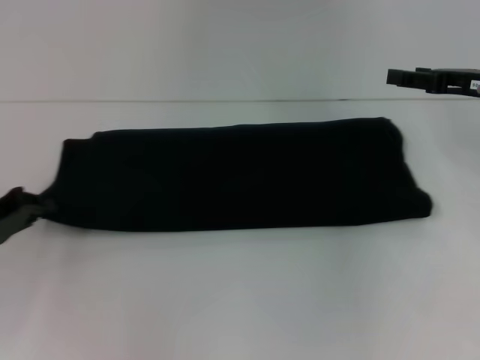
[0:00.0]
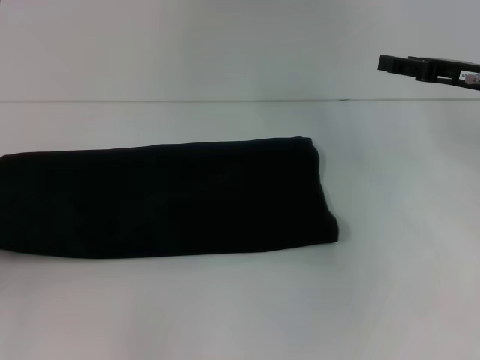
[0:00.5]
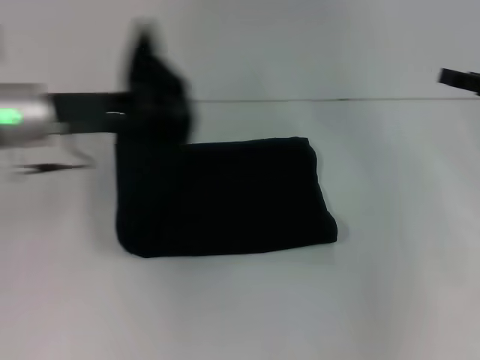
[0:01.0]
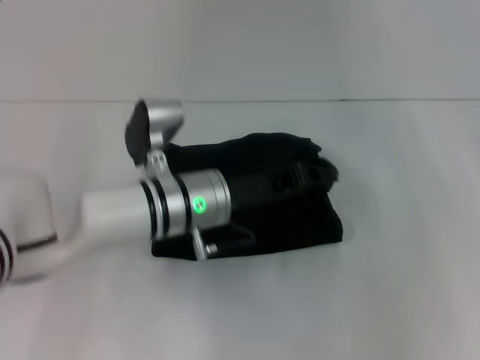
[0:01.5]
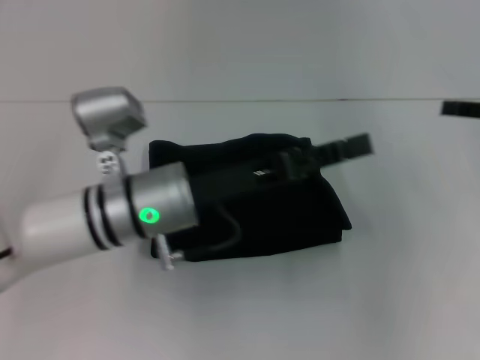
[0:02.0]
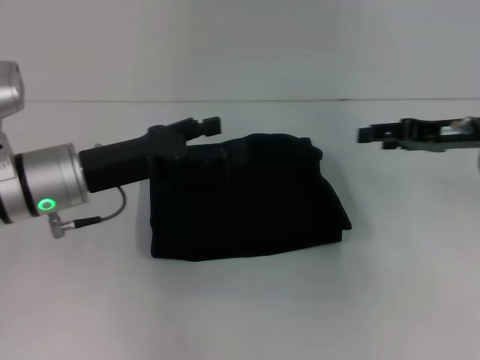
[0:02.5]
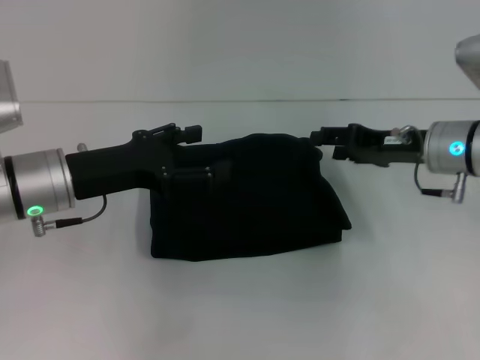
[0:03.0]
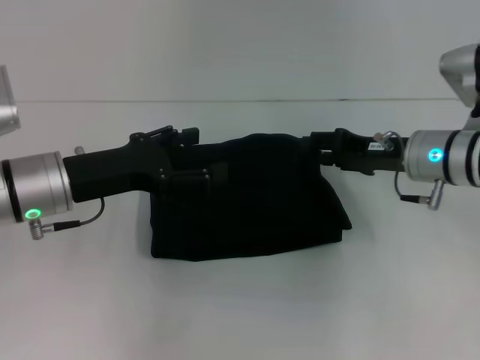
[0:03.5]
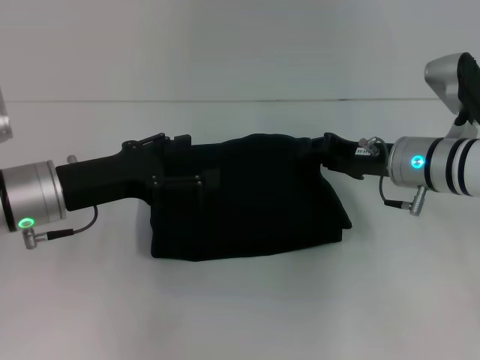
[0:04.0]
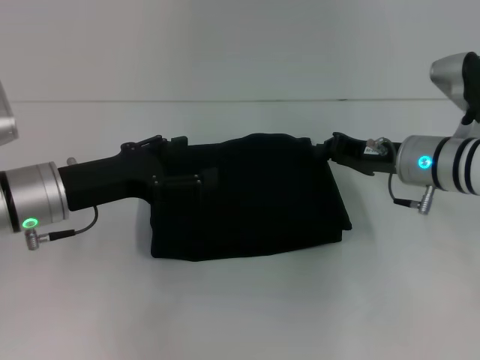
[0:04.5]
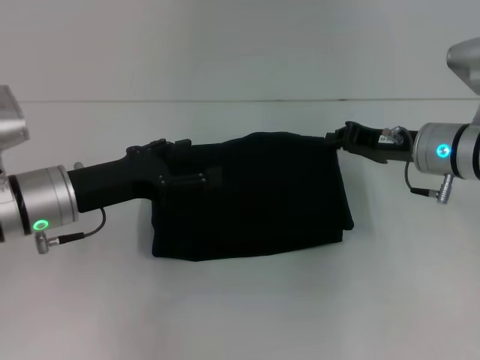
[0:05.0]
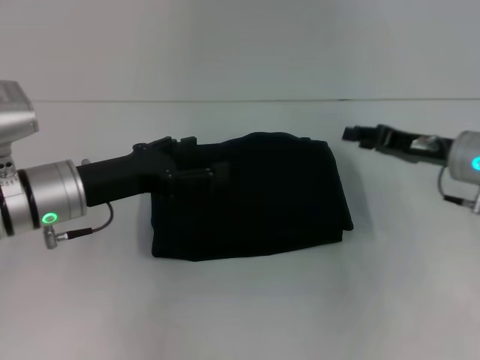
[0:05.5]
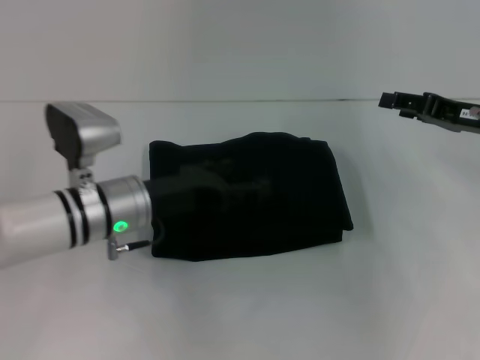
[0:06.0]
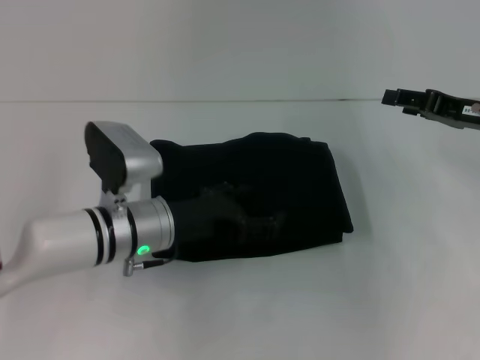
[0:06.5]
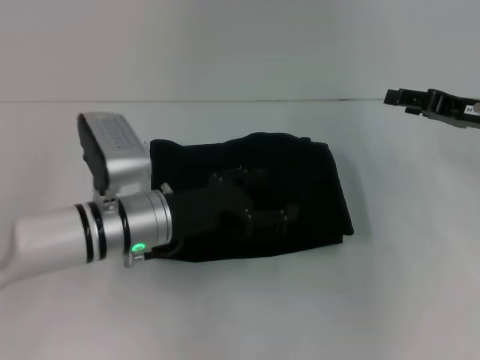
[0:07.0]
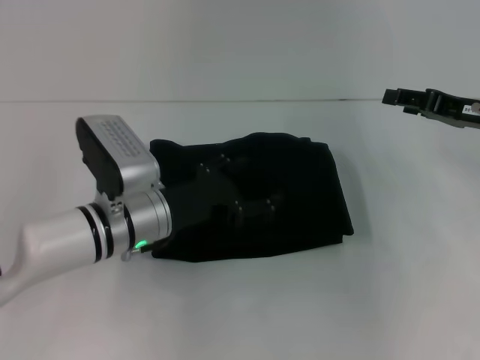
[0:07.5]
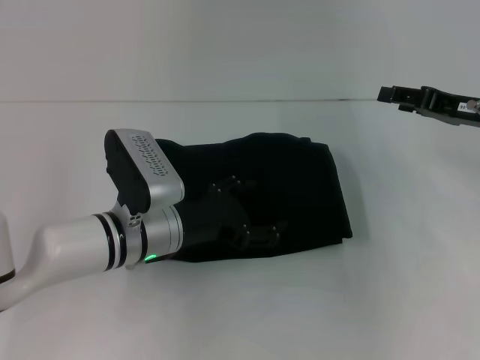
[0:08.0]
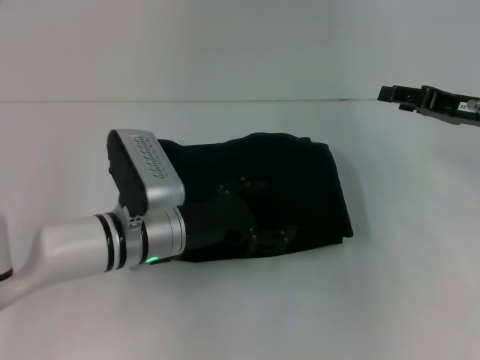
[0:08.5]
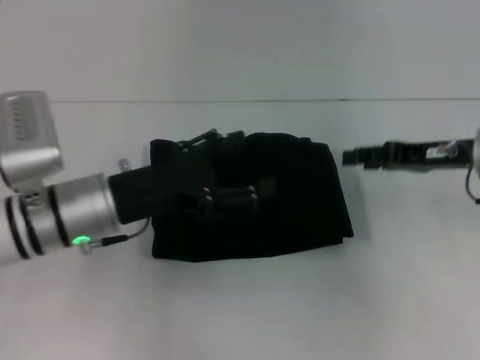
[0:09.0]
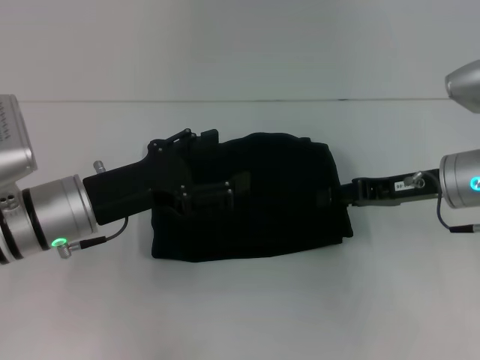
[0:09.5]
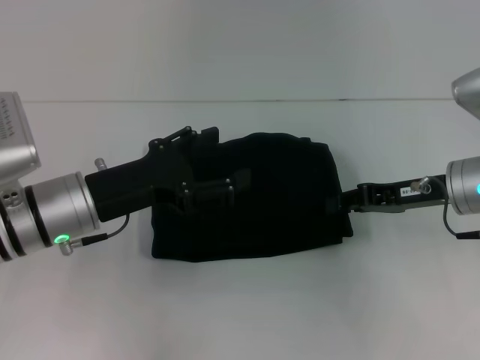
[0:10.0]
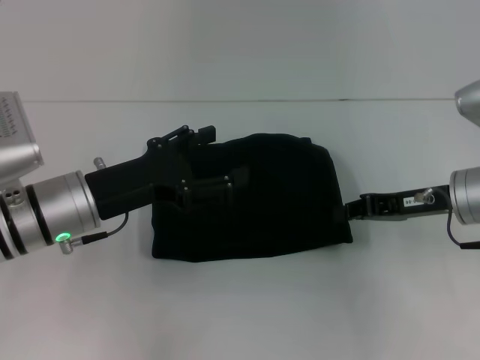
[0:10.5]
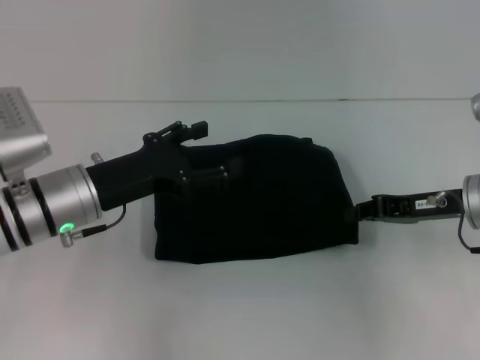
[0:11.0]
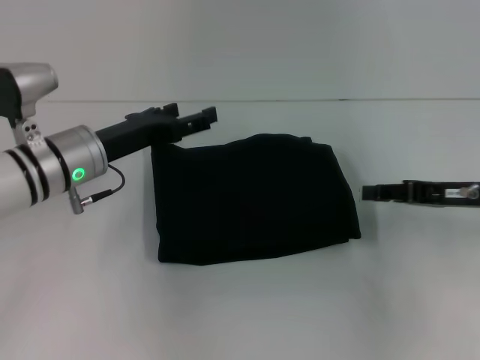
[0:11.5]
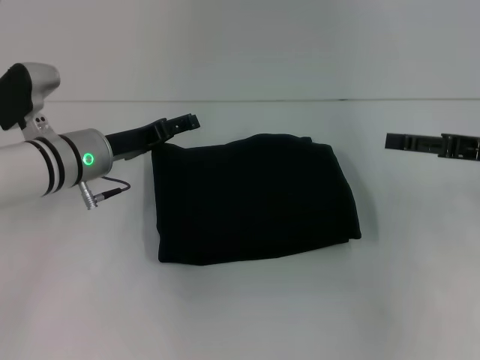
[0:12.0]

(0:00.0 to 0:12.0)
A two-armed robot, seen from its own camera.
Step, 0:00.0 - 0:02.0: Fold the clothes with your left hand.
0:00.0 - 0:02.0: The right gripper heads to the right, covering some 5 cm, while the left gripper is displaced to the right by approximately 25 cm.
0:02.0 - 0:04.0: The right gripper travels to the left and downward by some 20 cm. Meanwhile the left gripper shifts approximately 10 cm to the left, and opens its fingers.
0:04.0 - 0:06.0: The left gripper moves to the right, roughly 5 cm, while the right gripper moves to the right, about 10 cm, and closes, then opens again.
0:08.0 - 0:10.0: The left gripper goes some 10 cm to the left and upward. The right gripper travels to the left by approximately 5 cm.
0:10.0 - 0:12.0: The left gripper travels forward by some 10 cm. The right gripper moves to the right, some 10 cm, and opens.

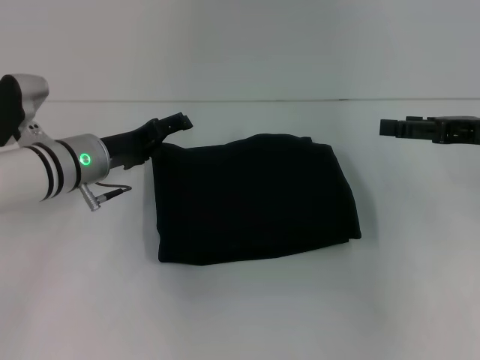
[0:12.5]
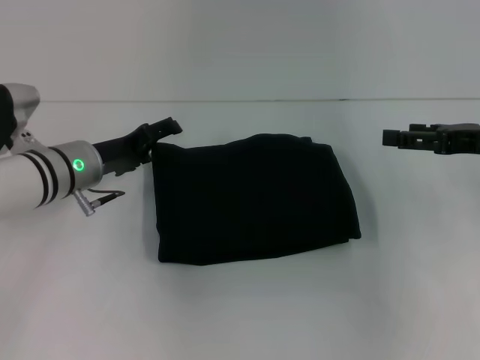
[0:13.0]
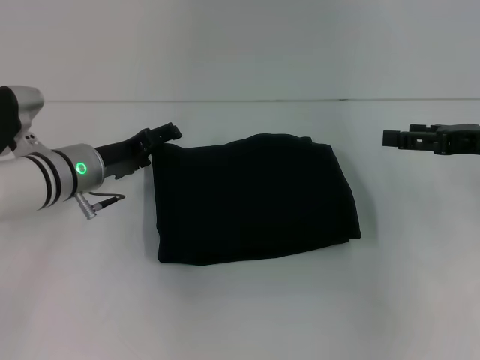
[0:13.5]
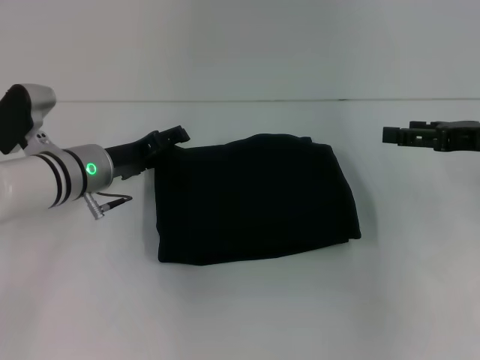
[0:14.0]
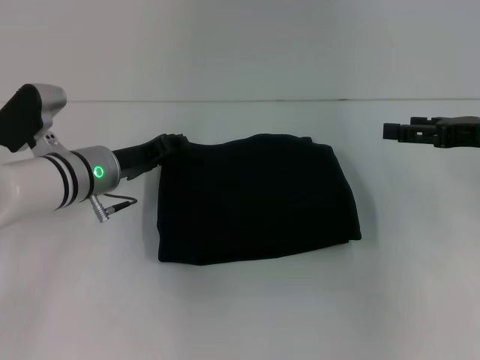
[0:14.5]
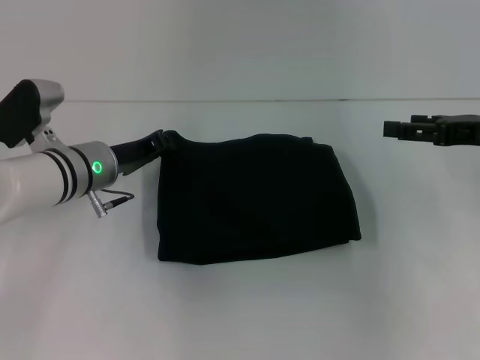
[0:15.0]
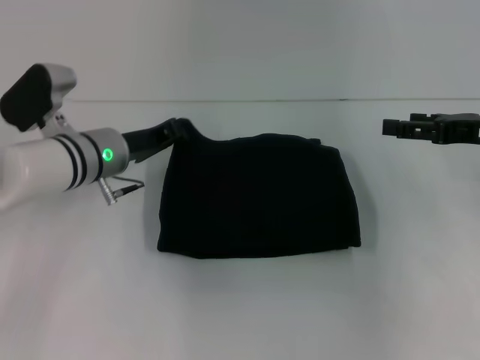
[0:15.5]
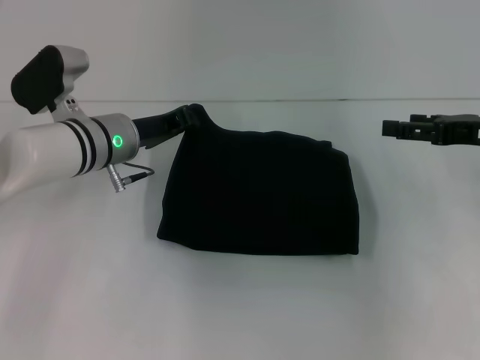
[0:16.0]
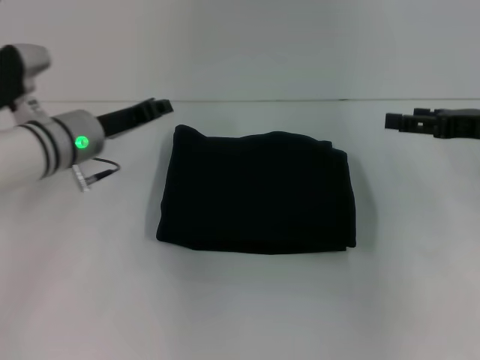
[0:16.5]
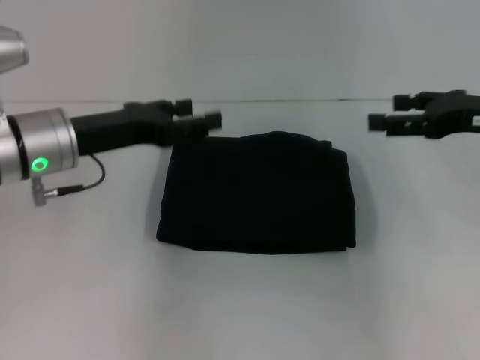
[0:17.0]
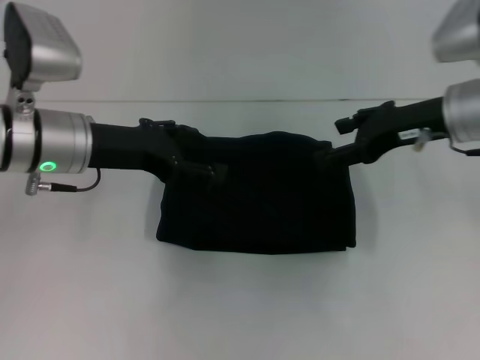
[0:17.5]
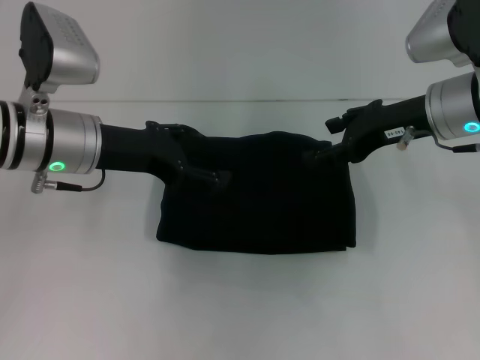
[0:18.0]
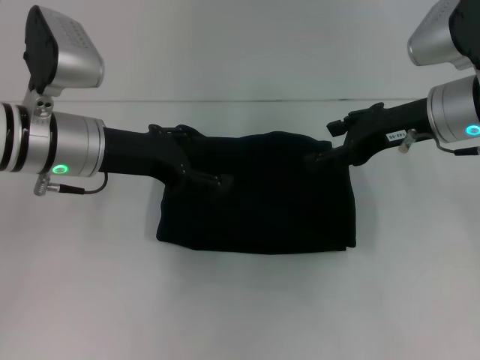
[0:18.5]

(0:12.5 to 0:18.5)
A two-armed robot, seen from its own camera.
0:12.5 - 0:14.5: The grippers move only a little.
0:14.5 - 0:16.5: The left gripper closes up.
0:16.5 - 0:18.5: The left gripper travels upward by about 5 cm, and opens up; the right gripper shifts approximately 10 cm to the left.
